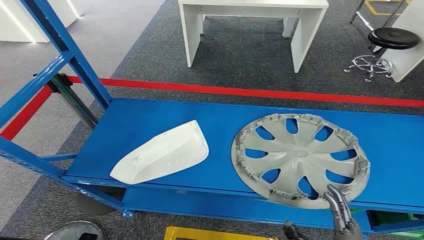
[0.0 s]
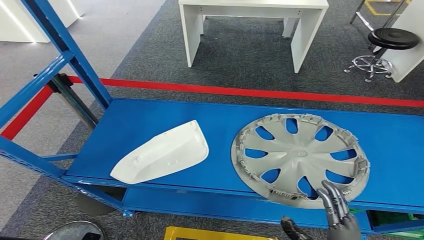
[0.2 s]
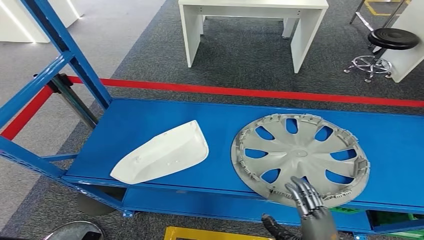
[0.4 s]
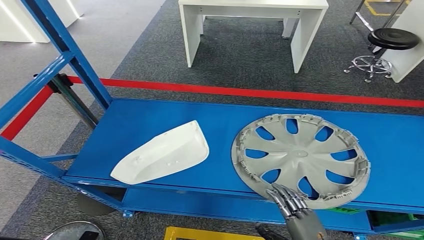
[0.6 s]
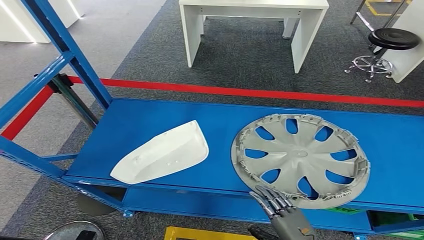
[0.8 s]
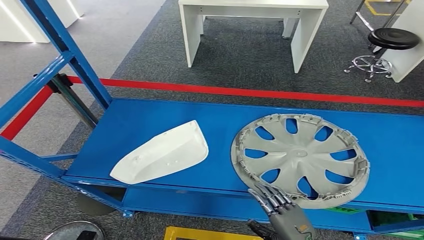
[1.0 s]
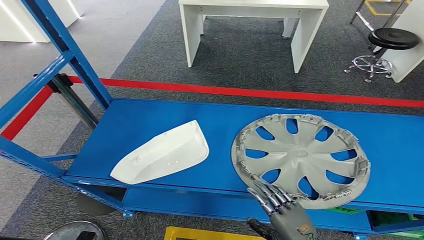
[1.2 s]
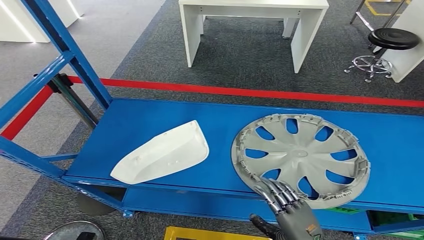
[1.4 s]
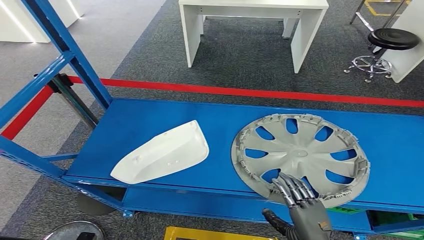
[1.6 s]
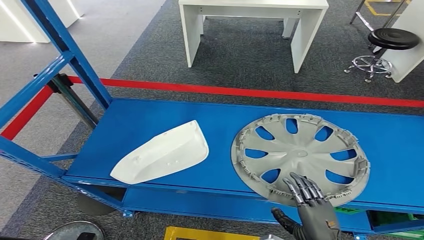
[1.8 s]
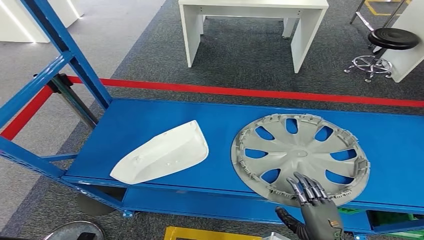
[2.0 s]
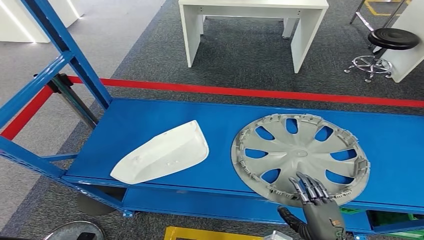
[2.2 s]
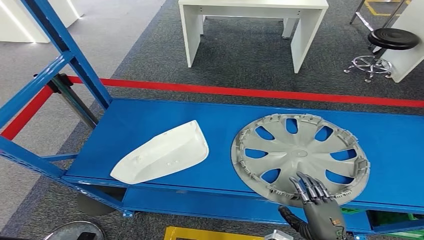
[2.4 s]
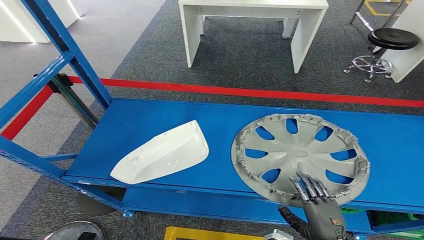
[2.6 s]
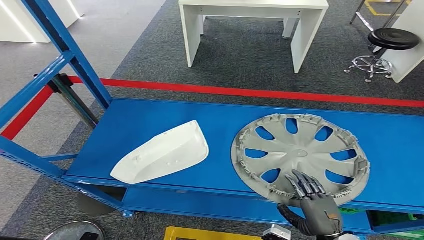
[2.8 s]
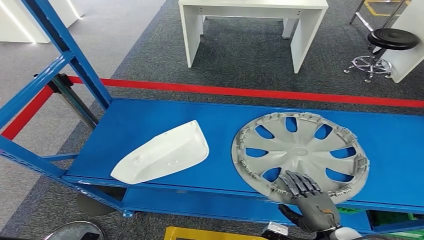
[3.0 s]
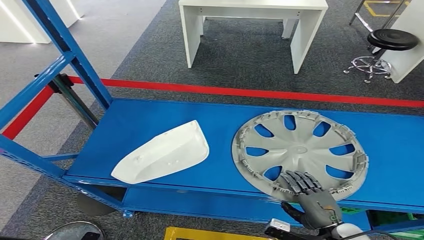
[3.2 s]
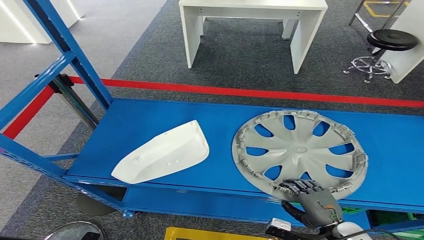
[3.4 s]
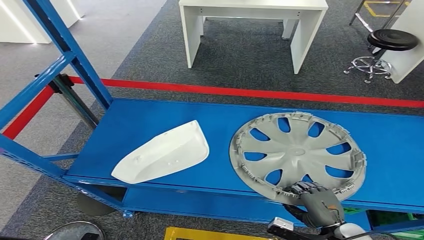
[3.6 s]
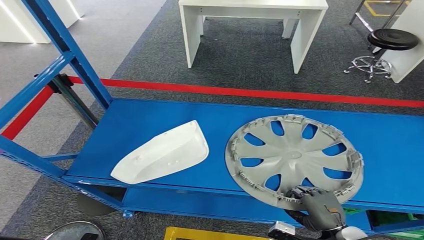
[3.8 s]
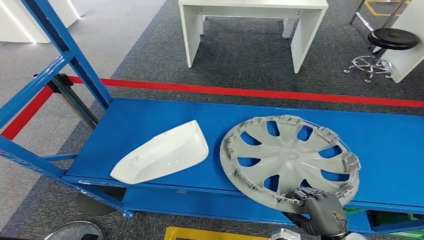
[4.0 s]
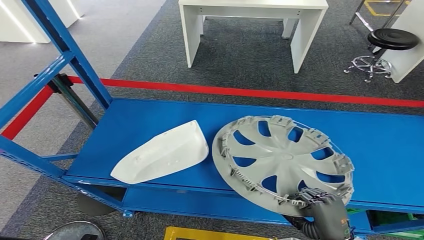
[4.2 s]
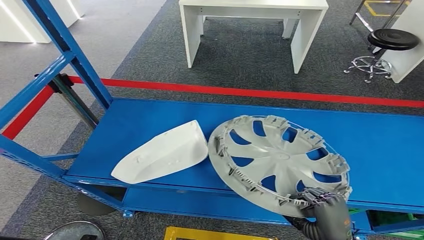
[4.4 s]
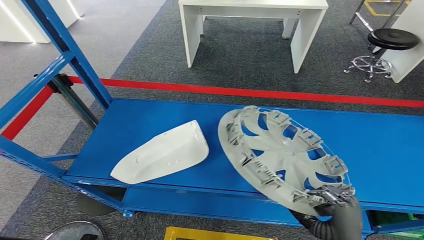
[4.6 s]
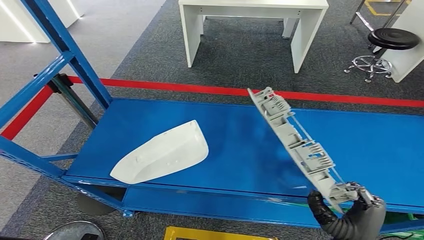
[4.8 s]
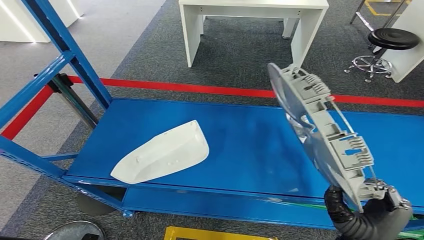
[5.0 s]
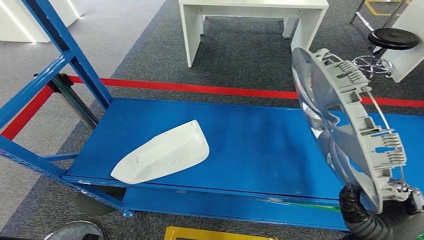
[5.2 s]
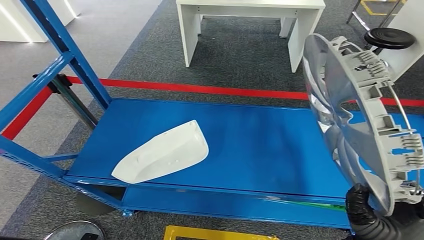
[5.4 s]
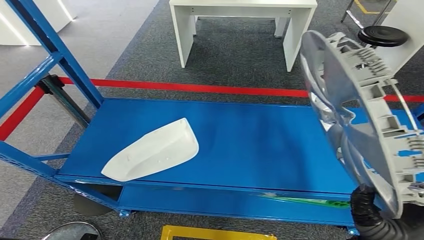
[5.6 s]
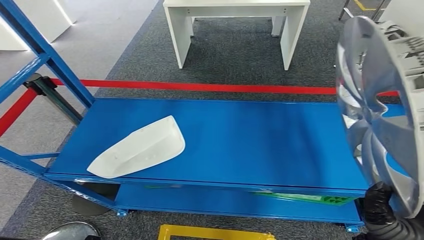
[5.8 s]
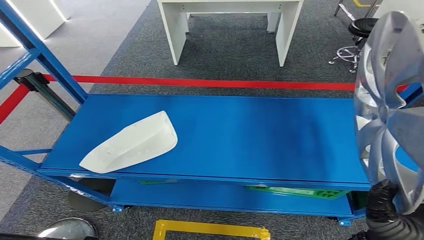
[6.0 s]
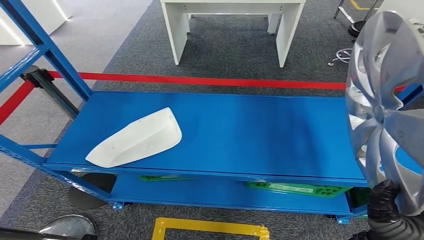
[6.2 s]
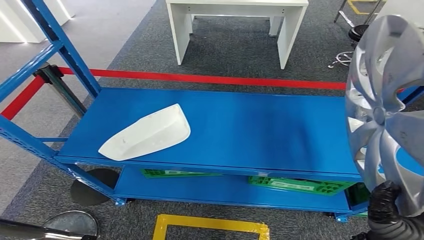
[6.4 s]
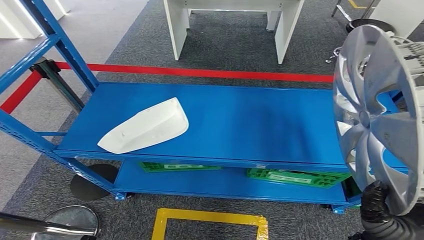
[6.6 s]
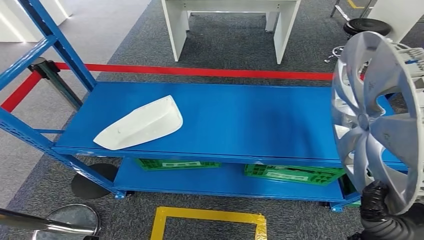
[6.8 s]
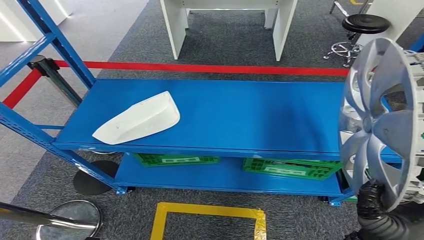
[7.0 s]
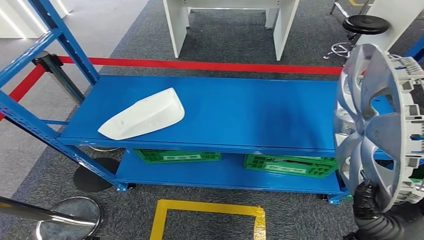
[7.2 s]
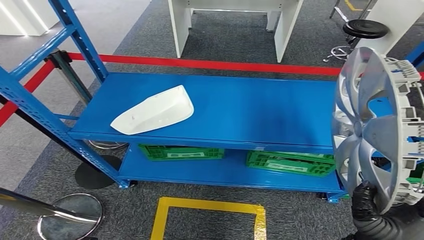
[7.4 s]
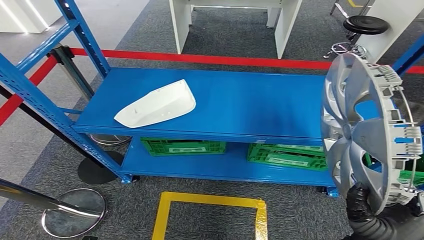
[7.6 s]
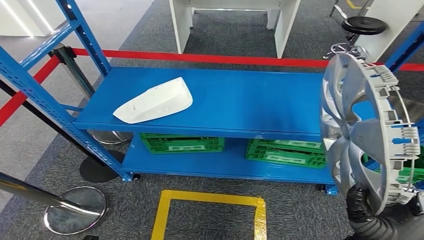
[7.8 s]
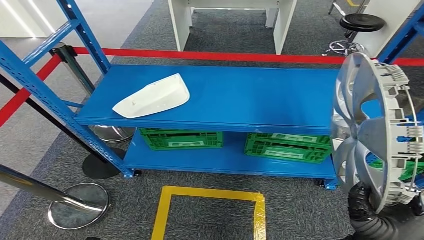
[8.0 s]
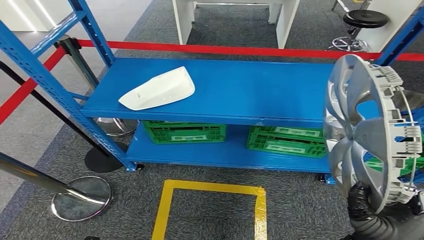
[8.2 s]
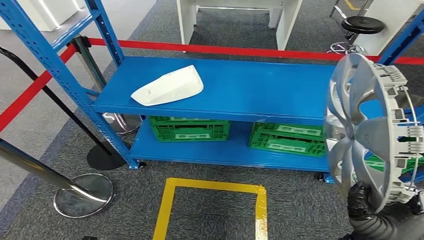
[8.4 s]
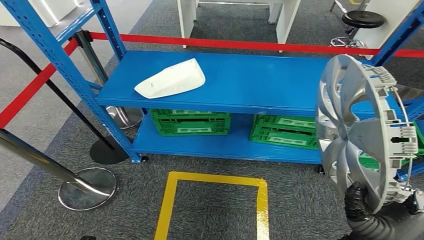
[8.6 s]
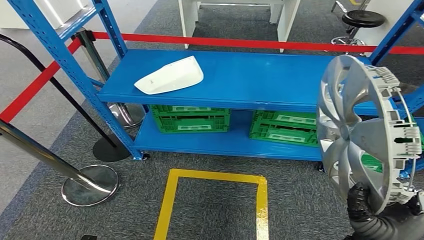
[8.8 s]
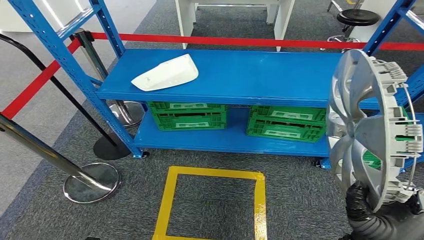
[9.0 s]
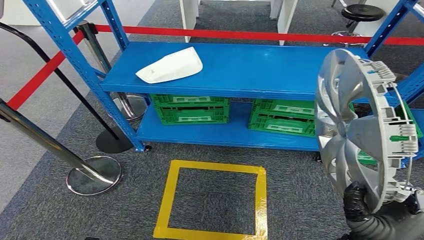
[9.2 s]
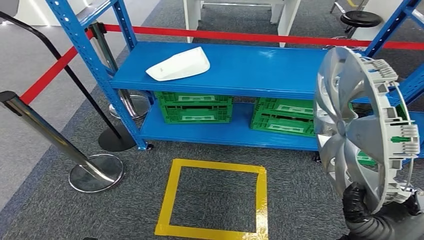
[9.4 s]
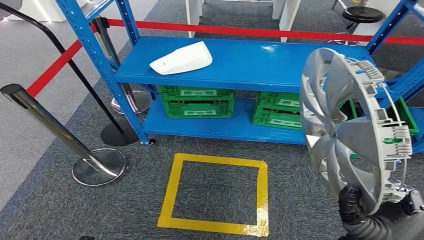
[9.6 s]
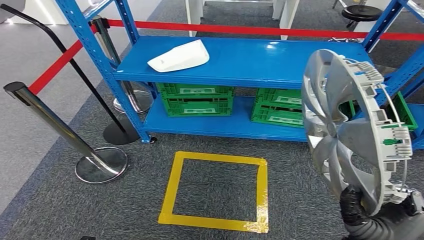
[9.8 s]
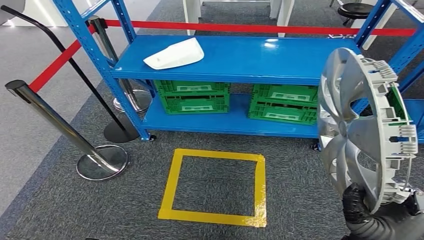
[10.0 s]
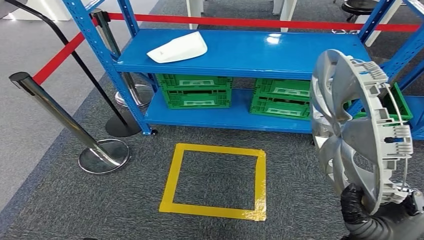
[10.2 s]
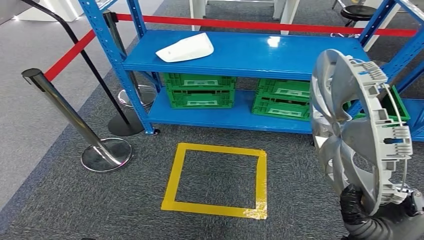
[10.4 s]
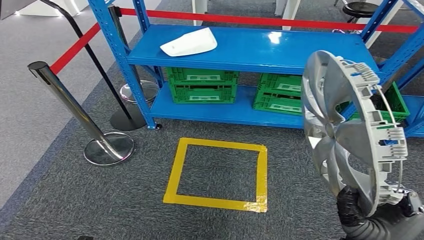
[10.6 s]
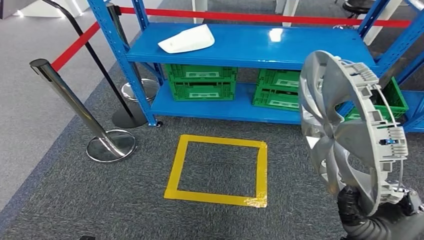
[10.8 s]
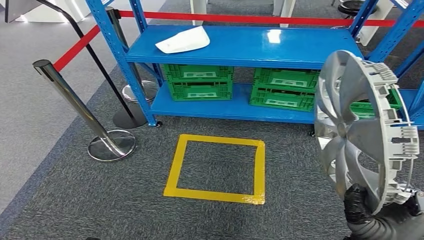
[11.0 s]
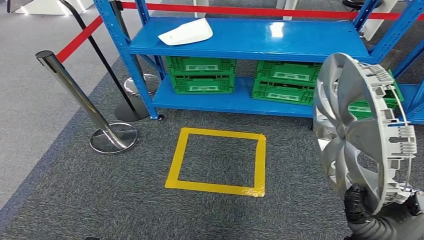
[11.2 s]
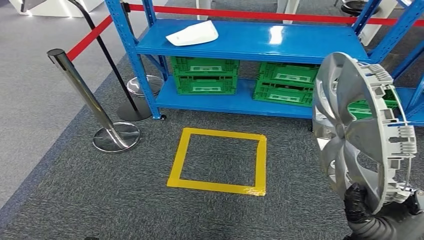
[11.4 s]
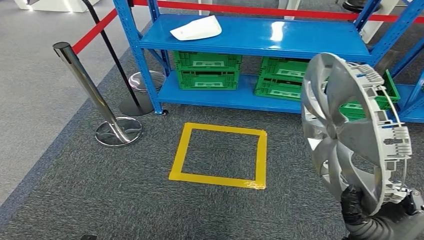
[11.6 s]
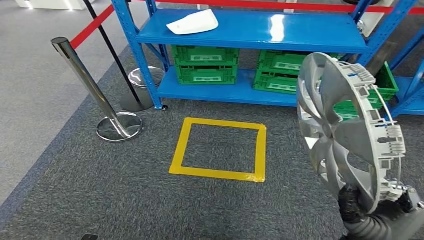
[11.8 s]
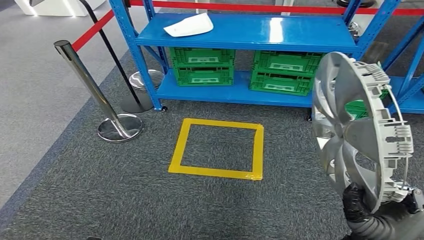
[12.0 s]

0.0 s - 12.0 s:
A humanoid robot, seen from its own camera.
Step, 0.0 s - 6.2 s: Take small components from the rack.
1.6 s - 3.0 s: There are only small adjustments of the hands.

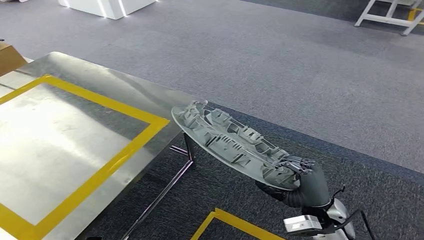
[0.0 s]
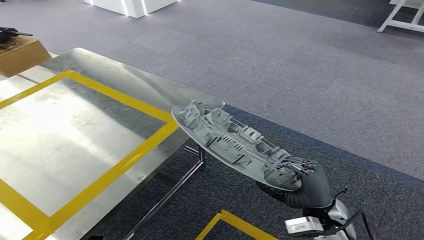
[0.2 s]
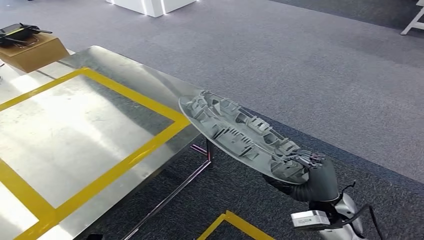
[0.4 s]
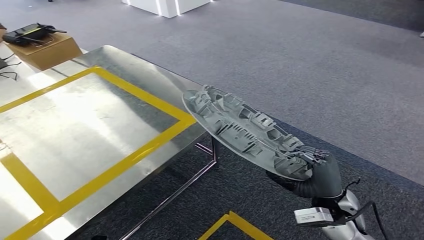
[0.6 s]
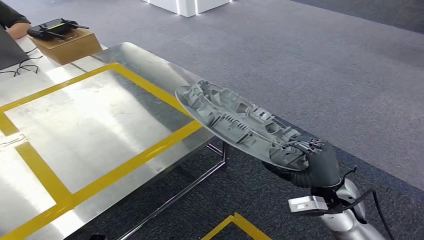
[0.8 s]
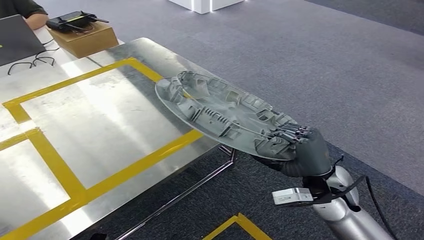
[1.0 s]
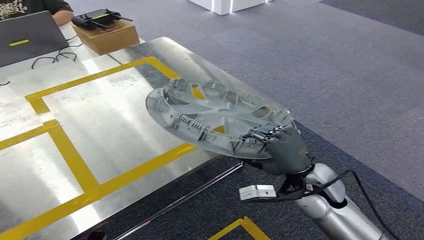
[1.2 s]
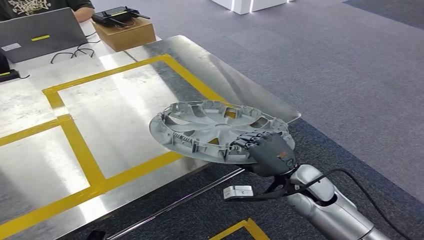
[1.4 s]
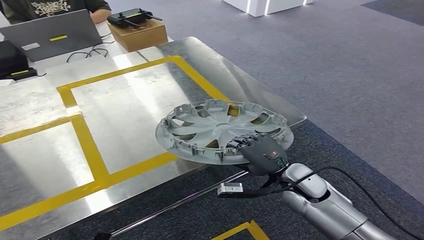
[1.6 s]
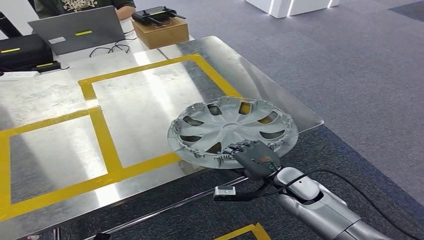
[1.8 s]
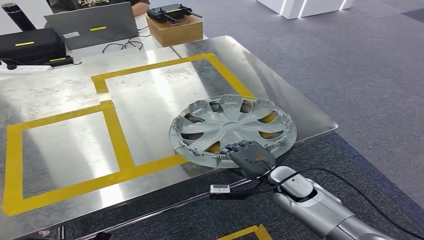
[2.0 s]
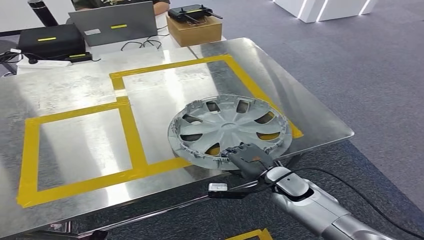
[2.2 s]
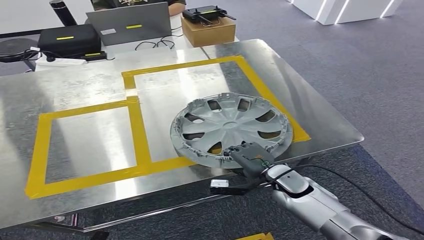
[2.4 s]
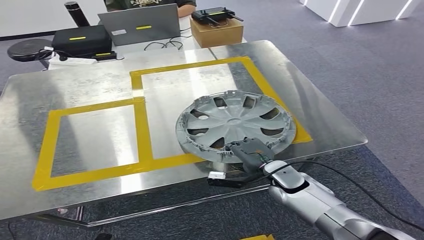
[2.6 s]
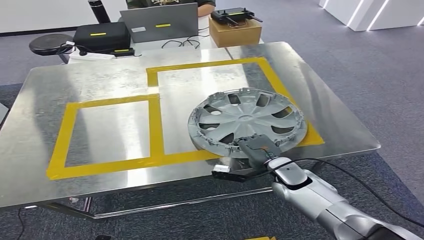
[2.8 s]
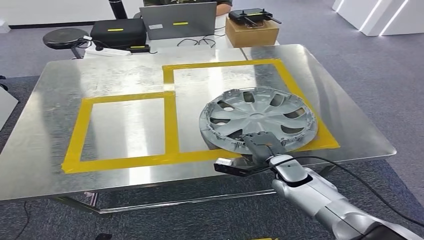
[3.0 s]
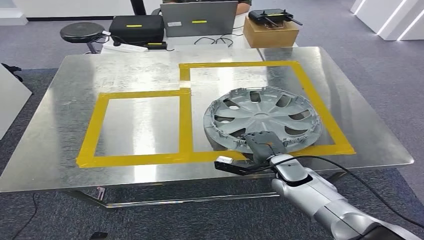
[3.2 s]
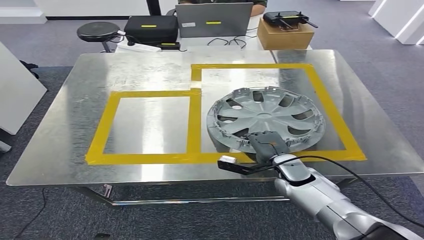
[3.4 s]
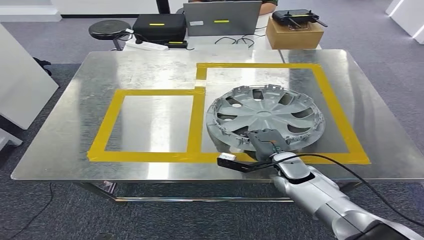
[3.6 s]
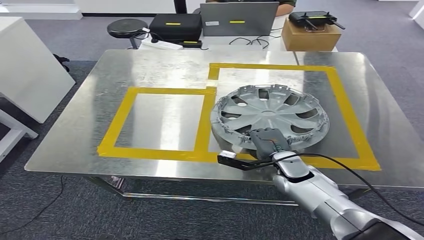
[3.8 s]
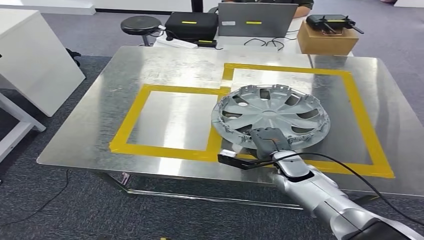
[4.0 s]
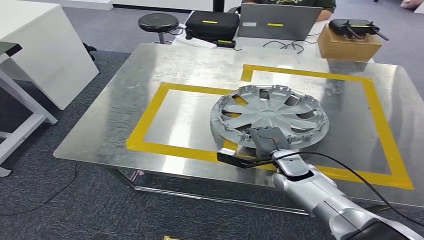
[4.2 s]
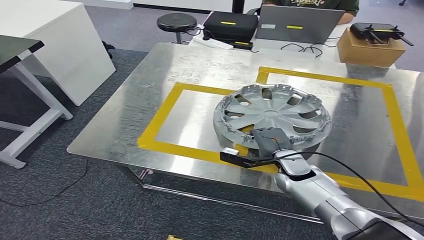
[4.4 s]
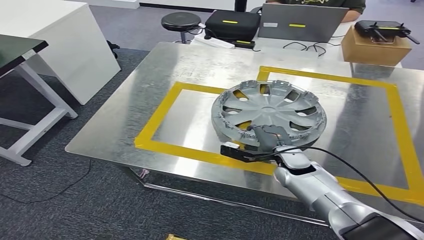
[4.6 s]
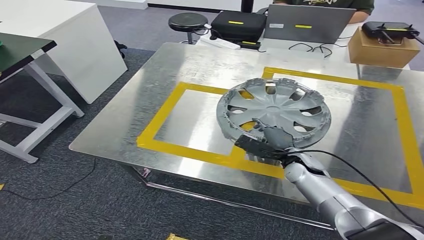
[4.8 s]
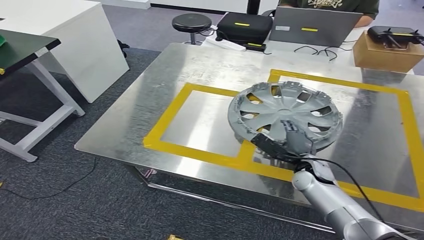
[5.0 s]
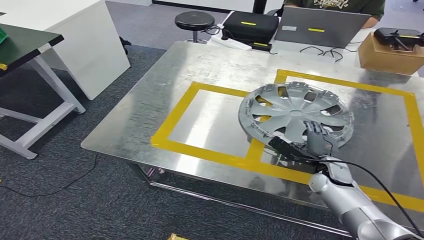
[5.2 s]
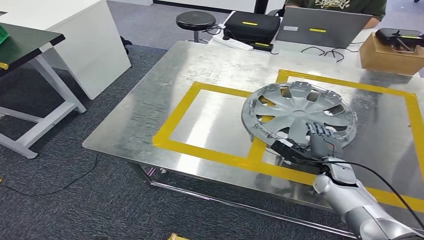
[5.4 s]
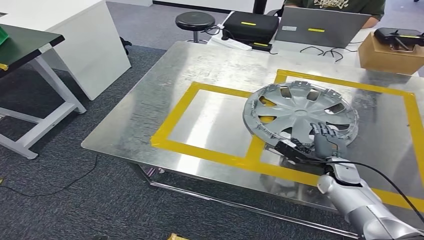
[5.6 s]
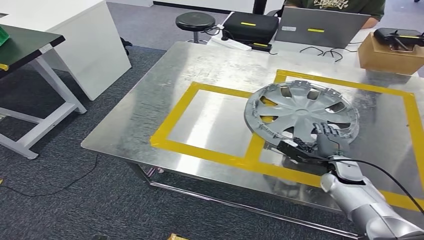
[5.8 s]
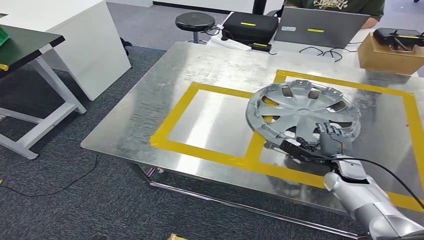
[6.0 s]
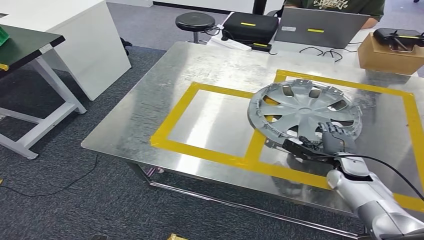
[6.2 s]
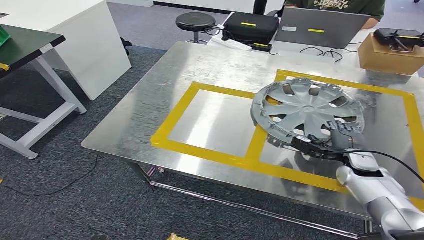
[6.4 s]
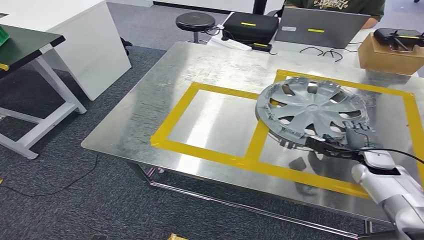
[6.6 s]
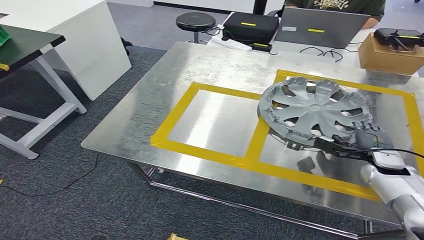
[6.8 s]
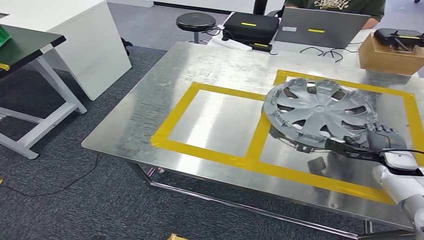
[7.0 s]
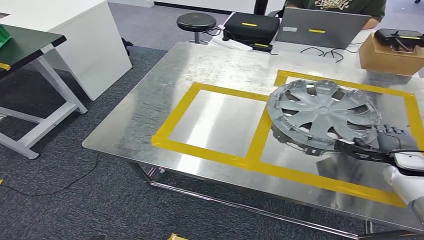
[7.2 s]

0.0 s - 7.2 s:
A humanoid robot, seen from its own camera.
5.8 s - 7.2 s: The right hand heads to the right, covering about 15 cm.
